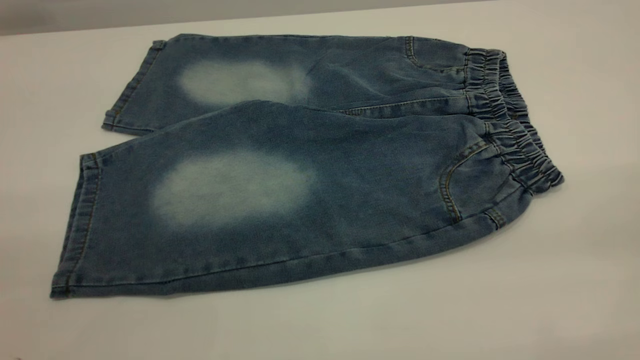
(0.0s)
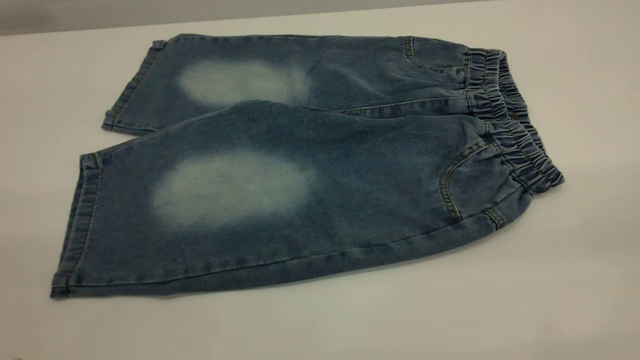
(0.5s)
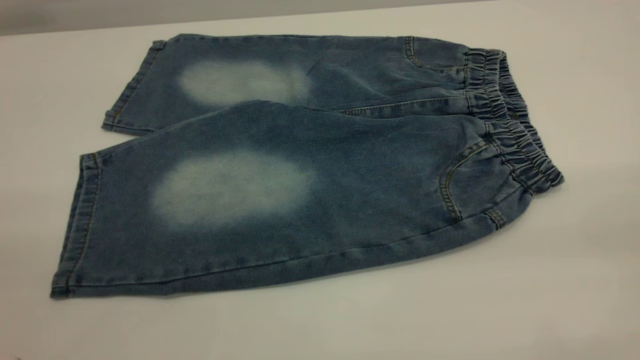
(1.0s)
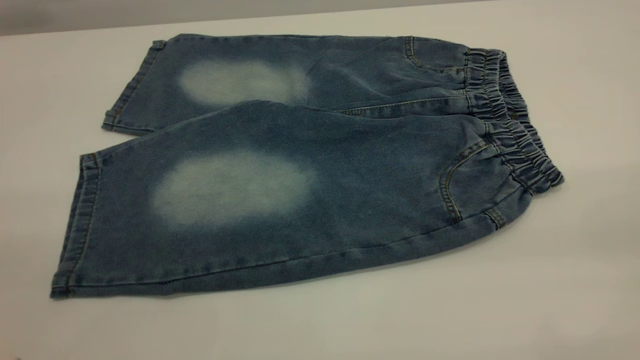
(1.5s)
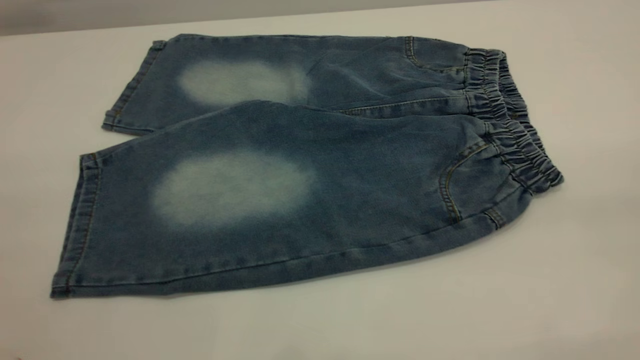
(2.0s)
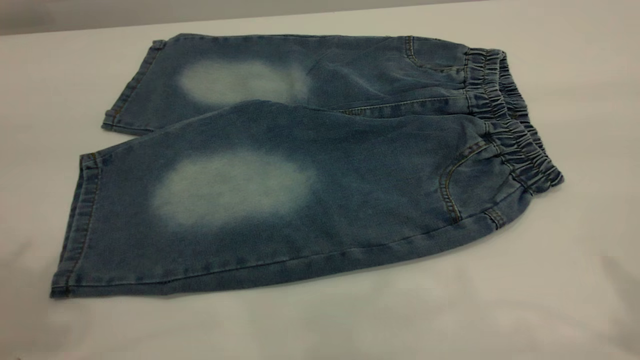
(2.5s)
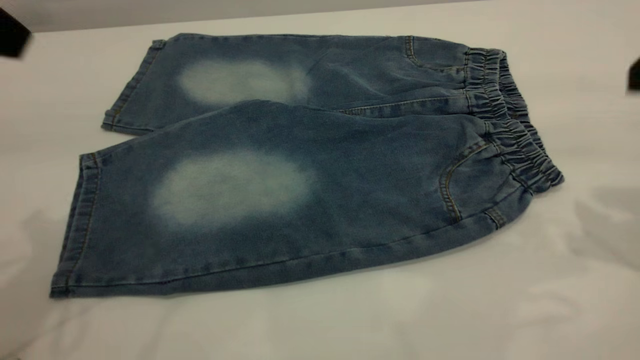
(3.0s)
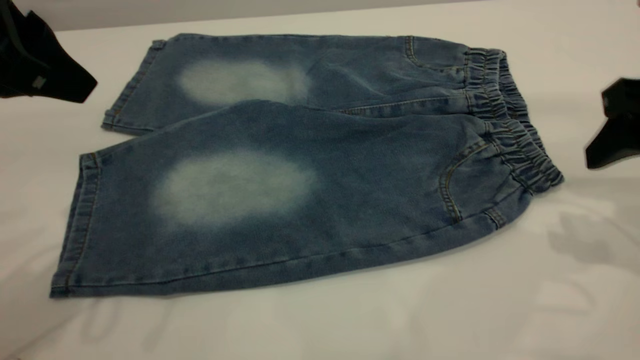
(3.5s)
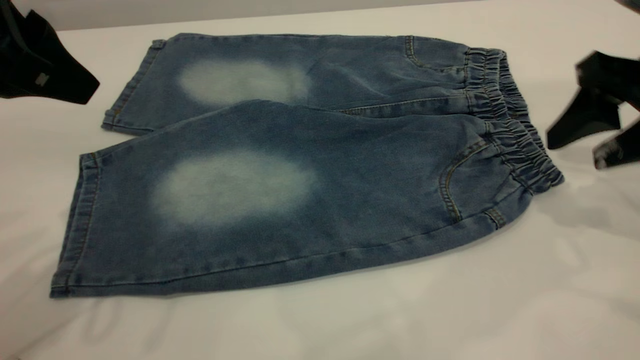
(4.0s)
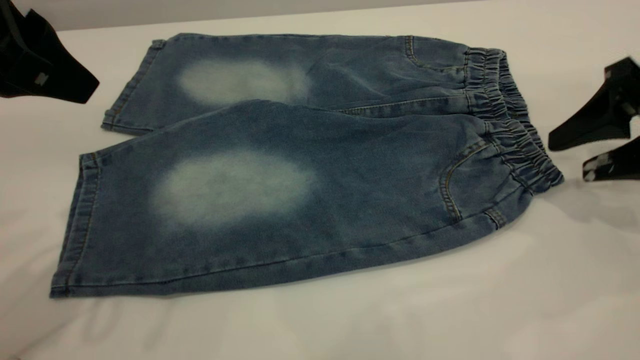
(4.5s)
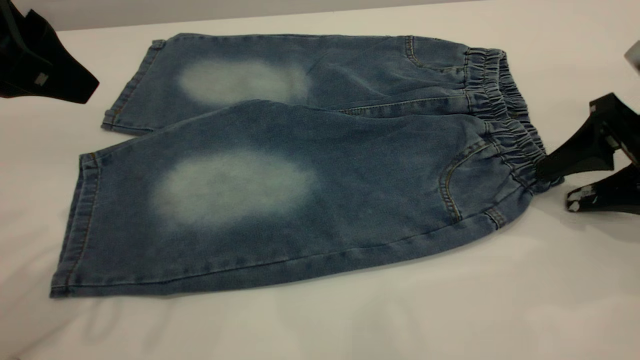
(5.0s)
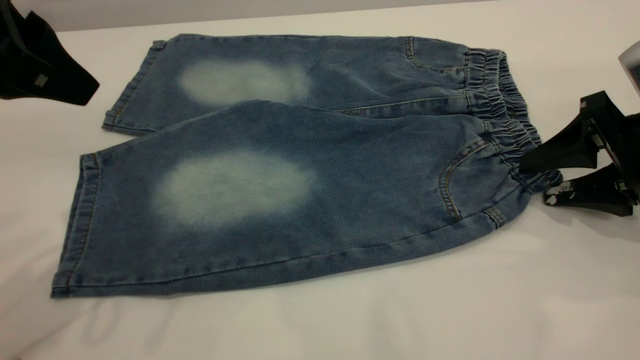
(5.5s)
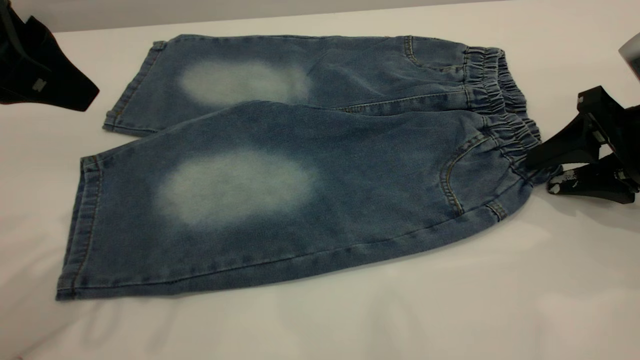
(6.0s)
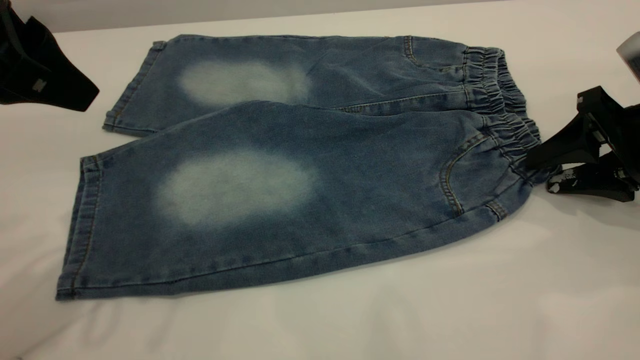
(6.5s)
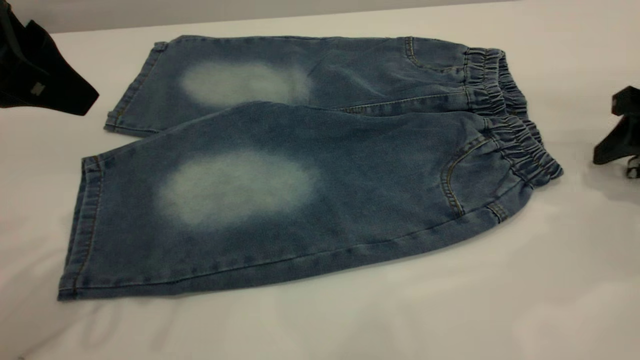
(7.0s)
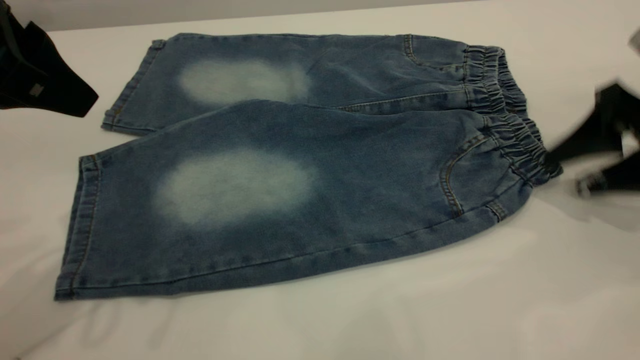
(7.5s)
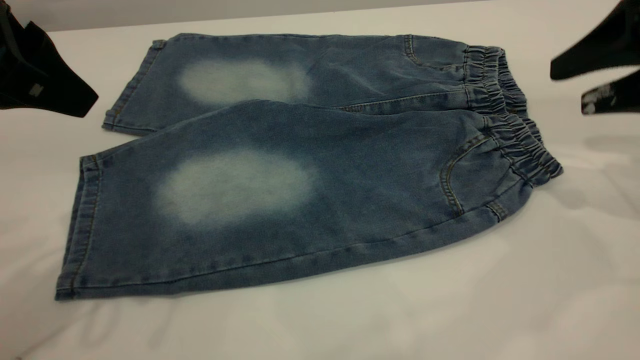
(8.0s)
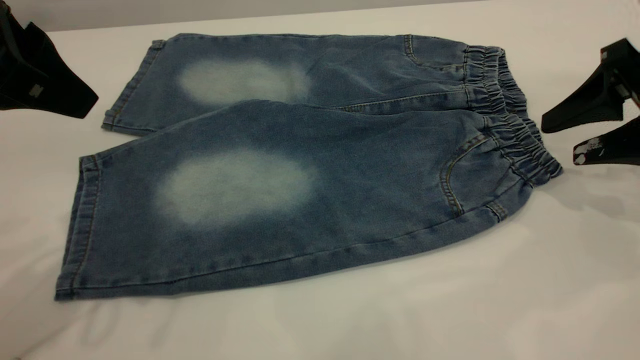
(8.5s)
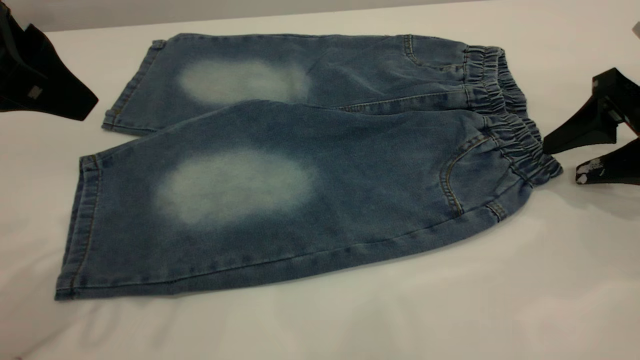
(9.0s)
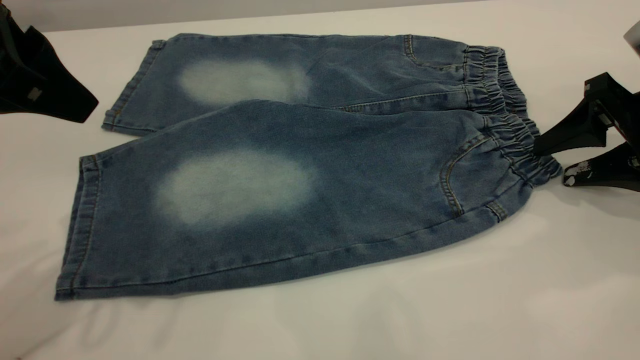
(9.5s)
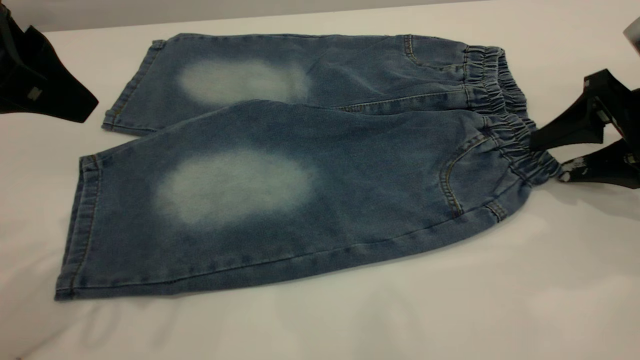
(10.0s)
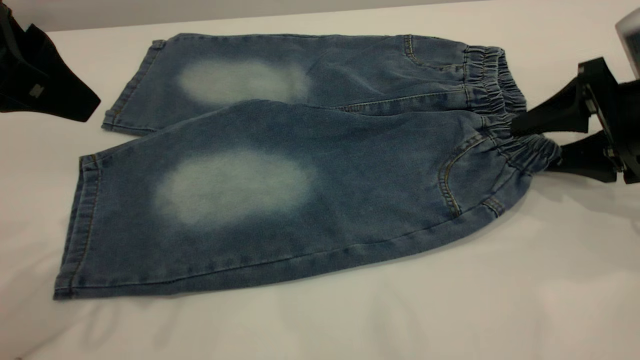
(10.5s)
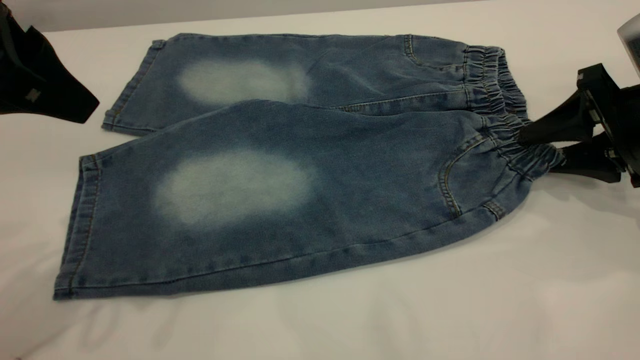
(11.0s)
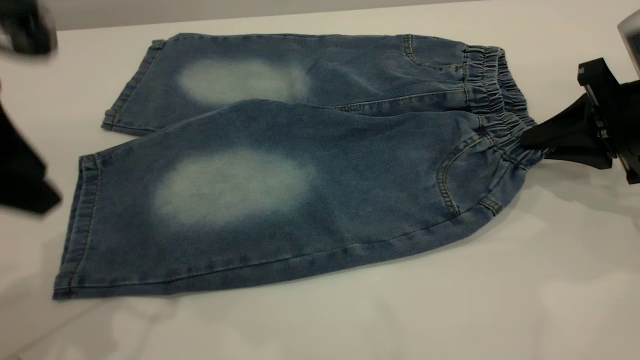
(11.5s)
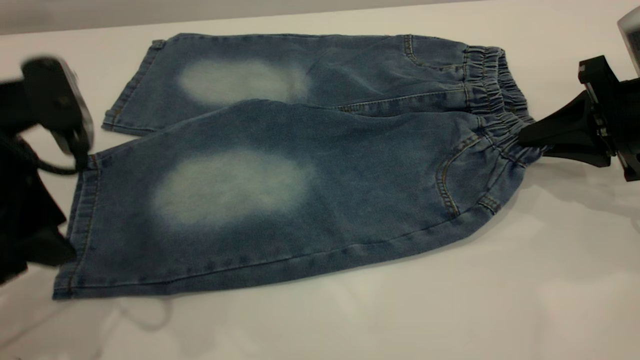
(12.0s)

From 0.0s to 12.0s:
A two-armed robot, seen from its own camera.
From 2.0s to 4.0s: The two grippers go approximately 30 cm forward and downward.
From 4.0s to 6.0s: The right gripper moves downward, about 10 cm.
From 6.0s to 8.0s: The right gripper is displaced upward by about 10 cm.
From 8.0s to 10.0s: The right gripper shifts some 10 cm downward.
From 10.0s to 12.0s: The left gripper shifts about 10 cm downward. Meanwhile the right gripper closes up.

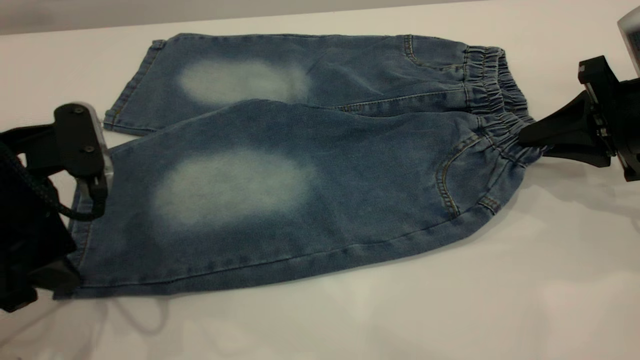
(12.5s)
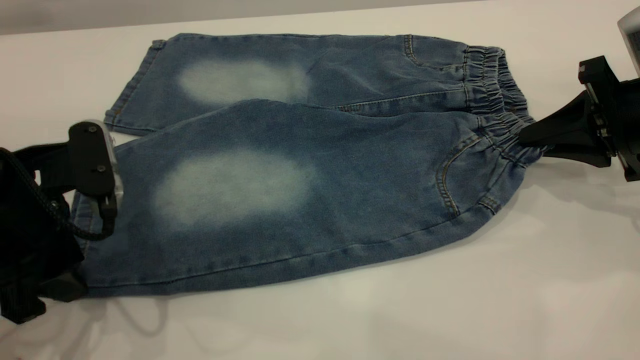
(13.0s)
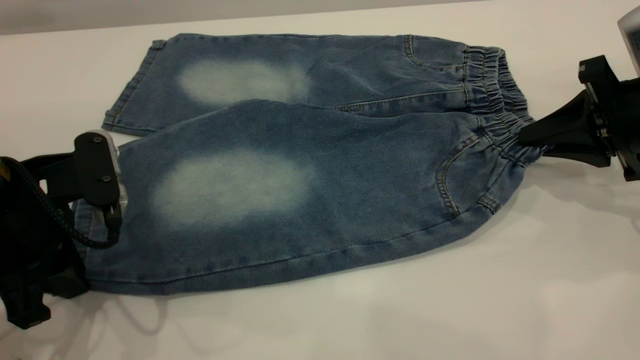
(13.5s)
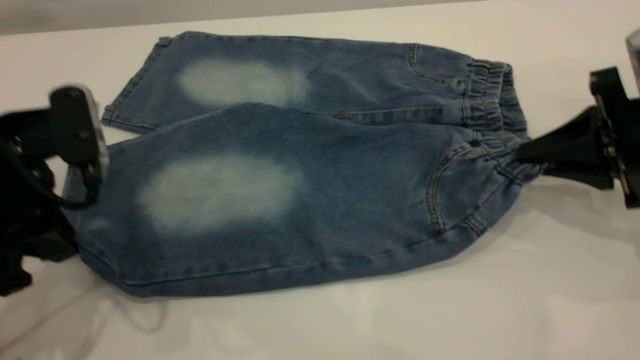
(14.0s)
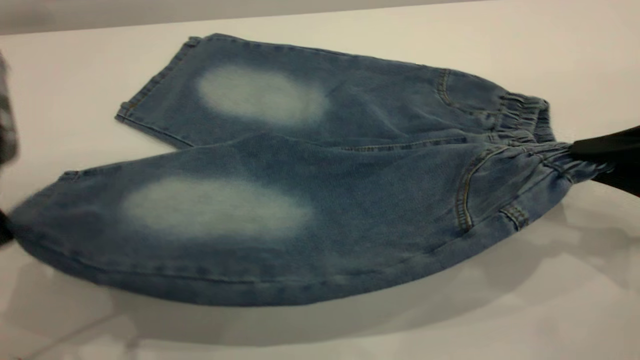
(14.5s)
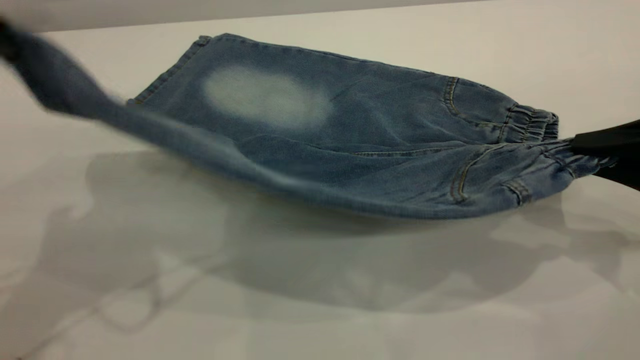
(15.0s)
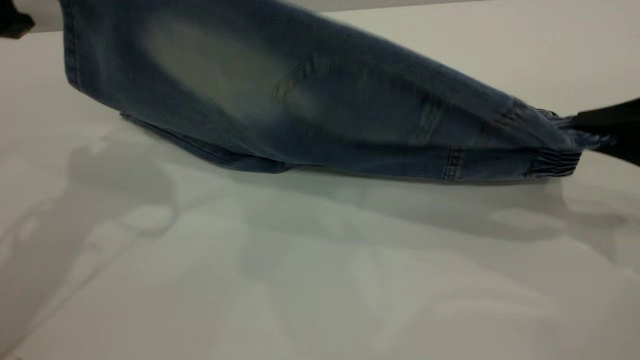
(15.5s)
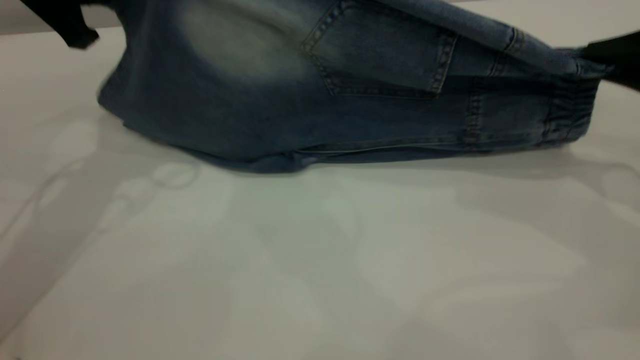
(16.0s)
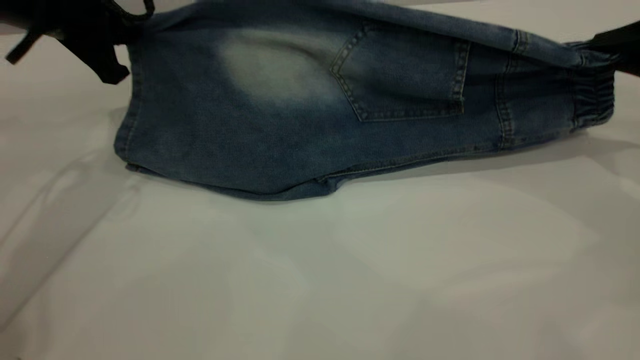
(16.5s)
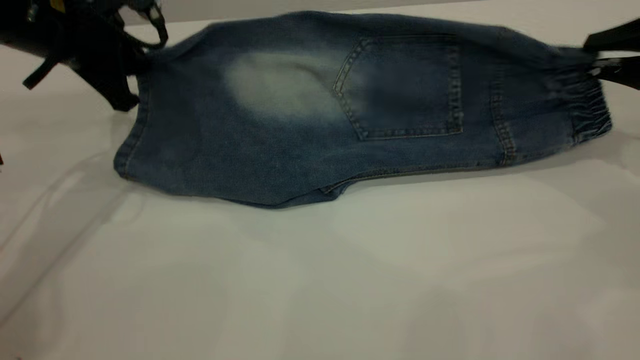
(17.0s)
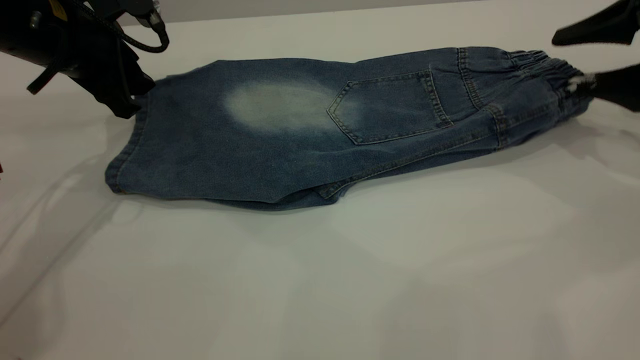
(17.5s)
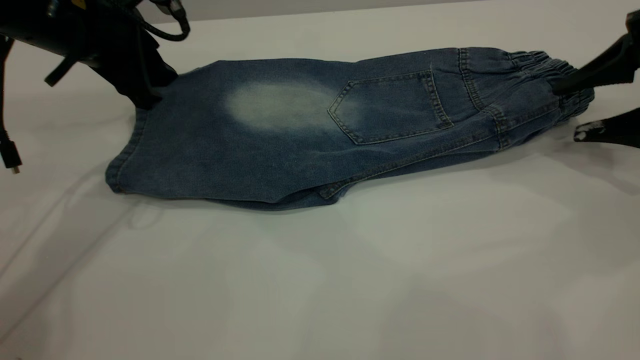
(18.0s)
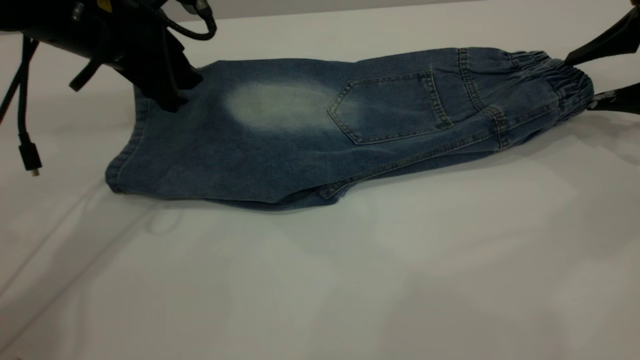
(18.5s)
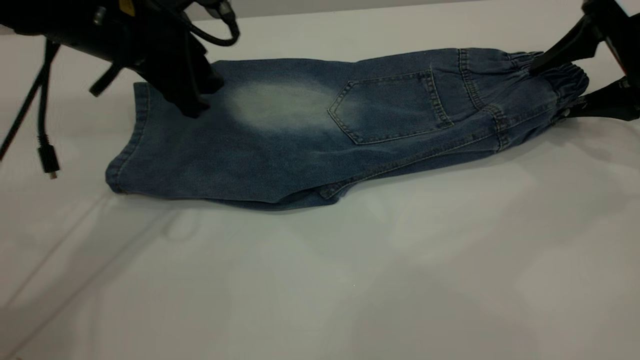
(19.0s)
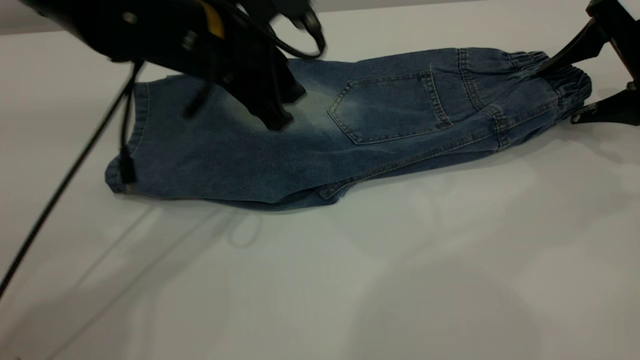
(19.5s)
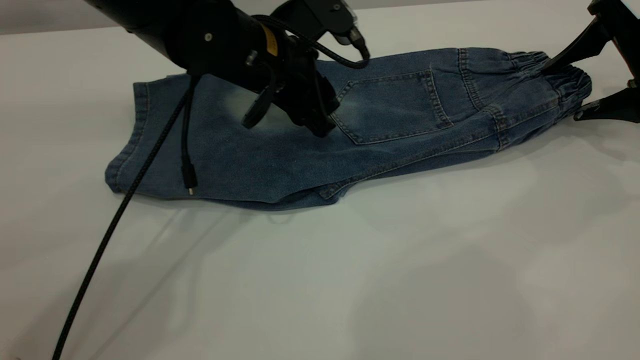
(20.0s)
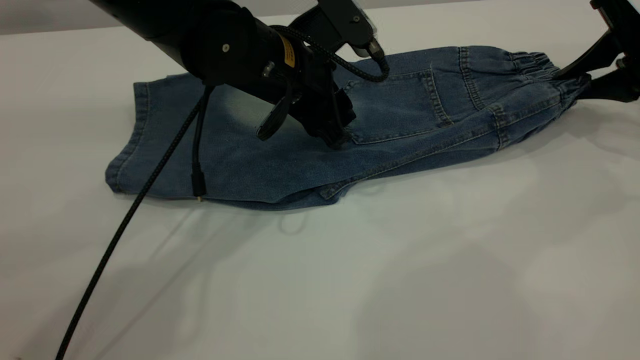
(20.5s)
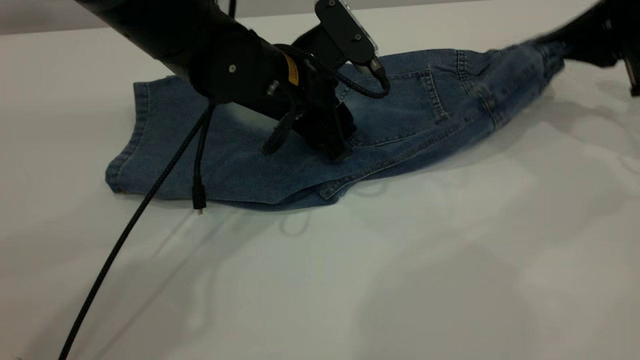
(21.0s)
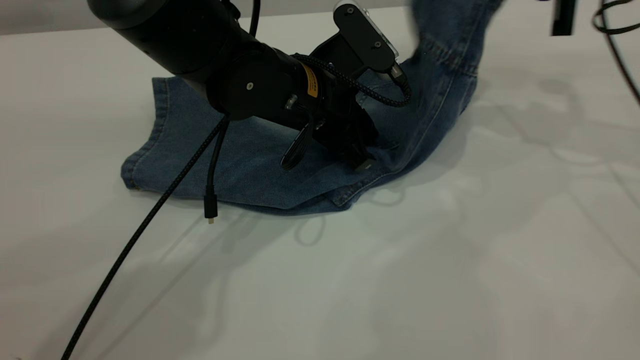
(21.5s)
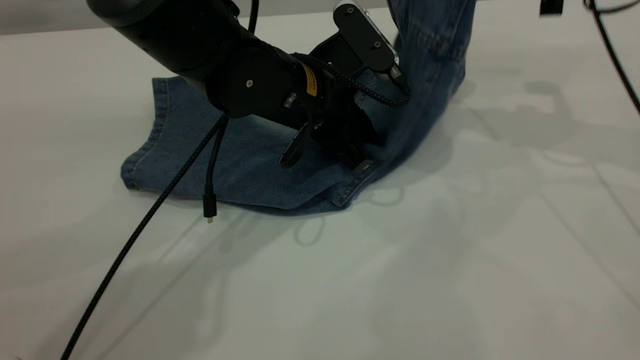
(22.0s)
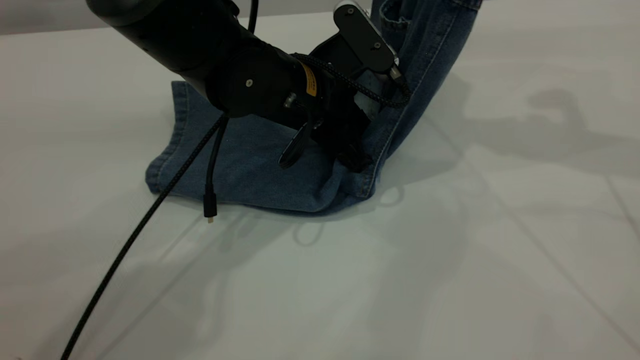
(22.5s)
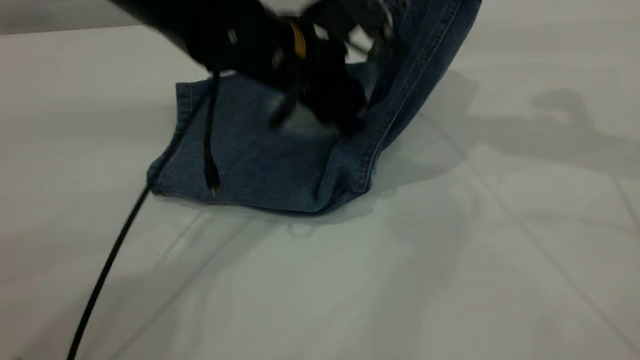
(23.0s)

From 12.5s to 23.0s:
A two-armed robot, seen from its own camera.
Step, from 12.5s to 18.5s: Fold the bottom of the pants upward.
From 12.5s to 14.5s: The right gripper goes approximately 10 cm backward. Meanwhile the left gripper travels upward by about 10 cm, and closes its fingers.
From 14.5s to 16.5s: The left gripper travels forward by about 20 cm; the right gripper goes approximately 10 cm forward and to the right.
From 16.5s to 19.0s: The left gripper shifts some 10 cm to the right, and opens its fingers. The right gripper travels forward by some 5 cm, and opens its fingers.
From 19.0s to 21.0s: The left gripper moves to the right and downward, some 15 cm. The right gripper closes its fingers.
From 21.0s to 23.0s: The right gripper moves upward and to the left, some 20 cm.
